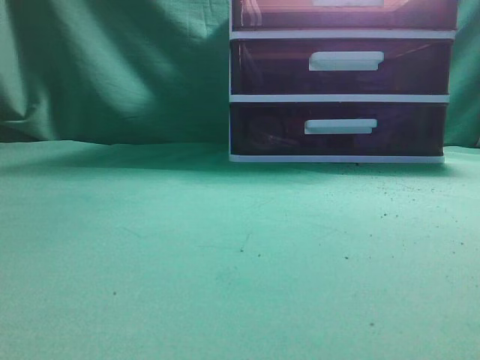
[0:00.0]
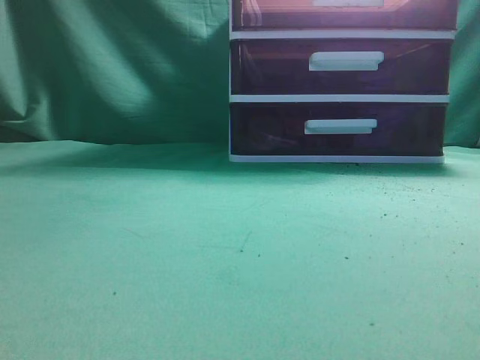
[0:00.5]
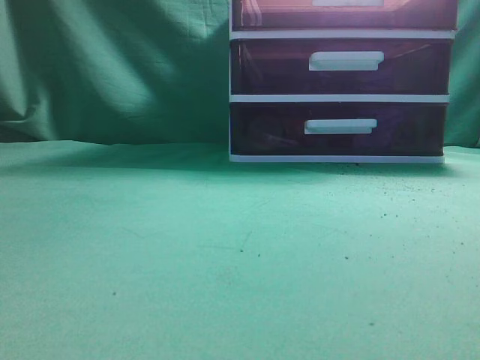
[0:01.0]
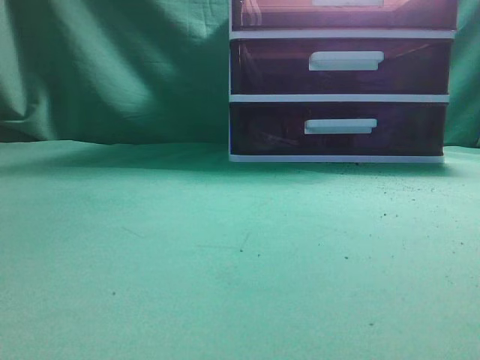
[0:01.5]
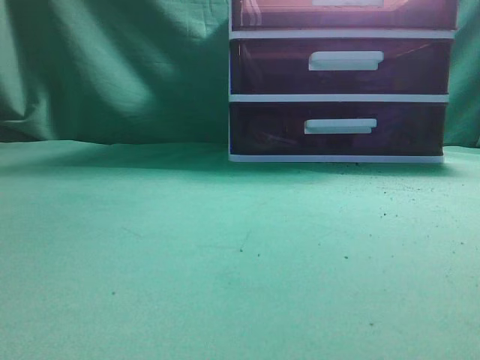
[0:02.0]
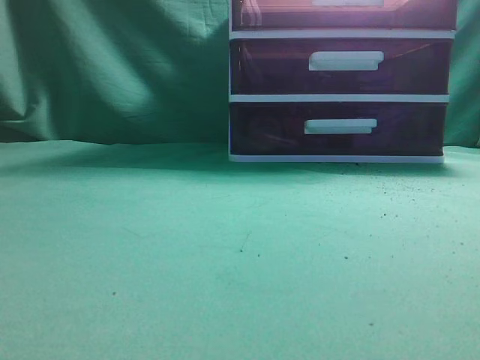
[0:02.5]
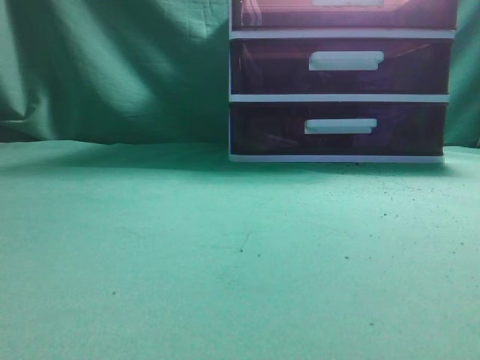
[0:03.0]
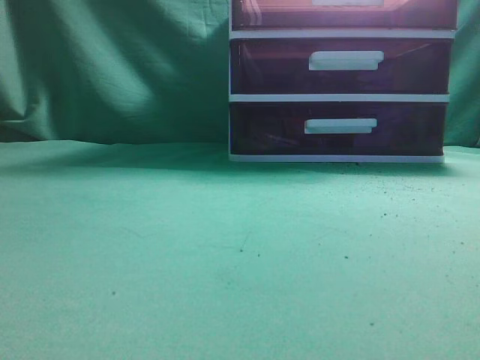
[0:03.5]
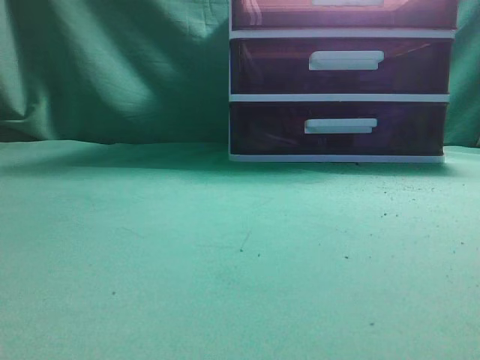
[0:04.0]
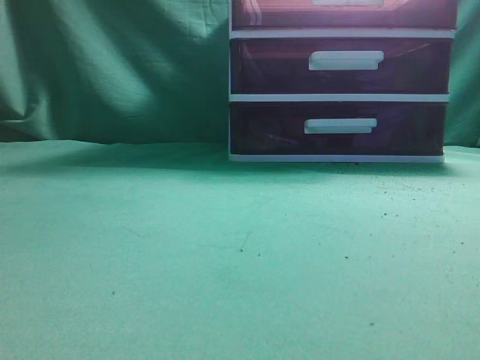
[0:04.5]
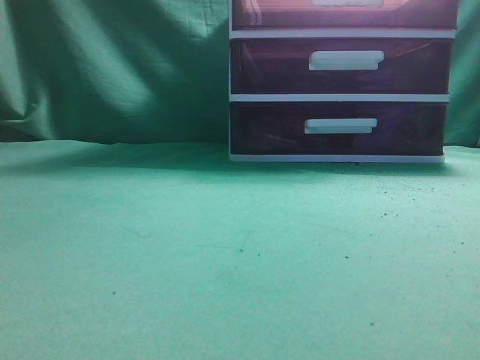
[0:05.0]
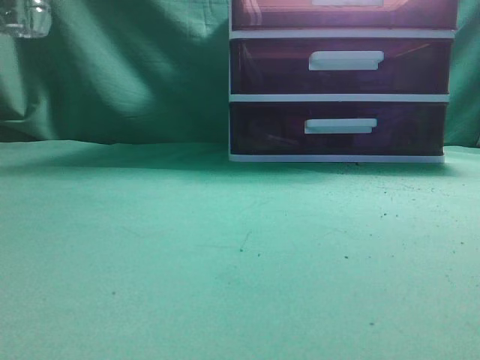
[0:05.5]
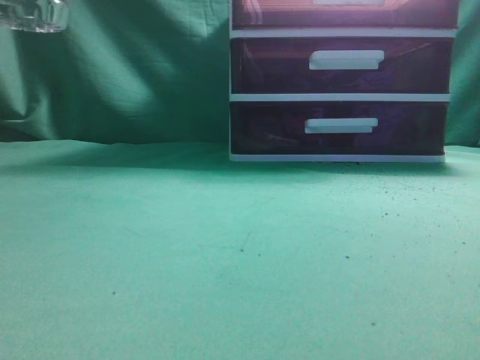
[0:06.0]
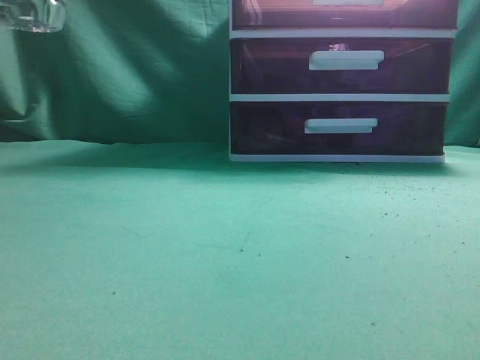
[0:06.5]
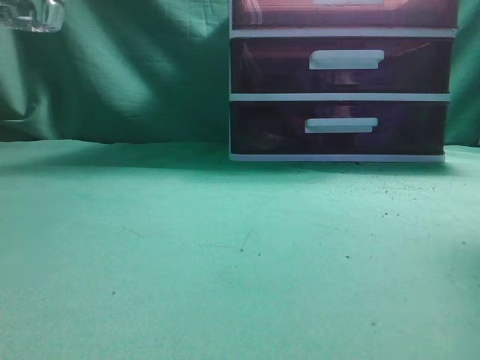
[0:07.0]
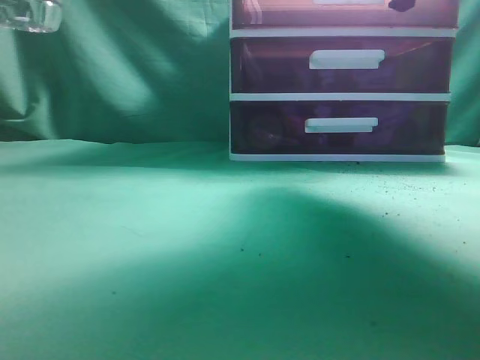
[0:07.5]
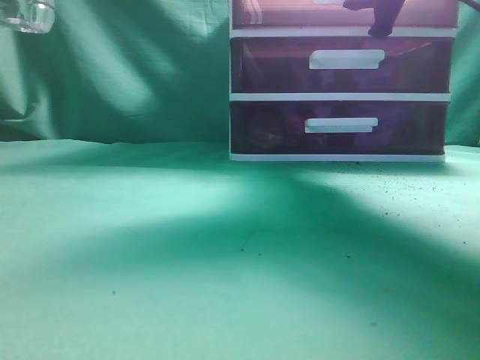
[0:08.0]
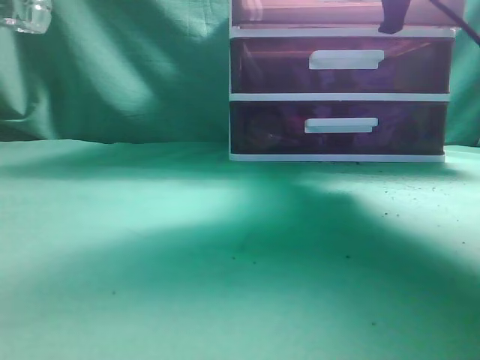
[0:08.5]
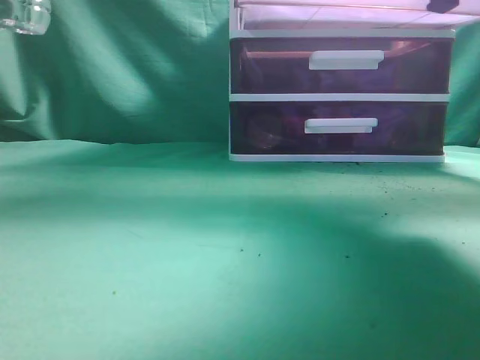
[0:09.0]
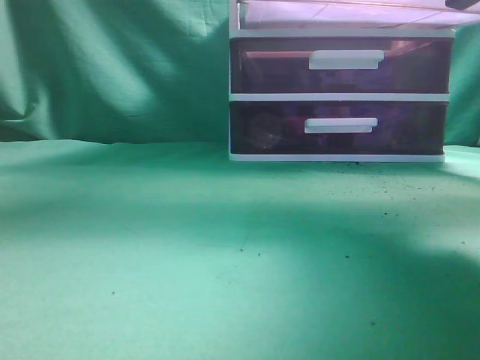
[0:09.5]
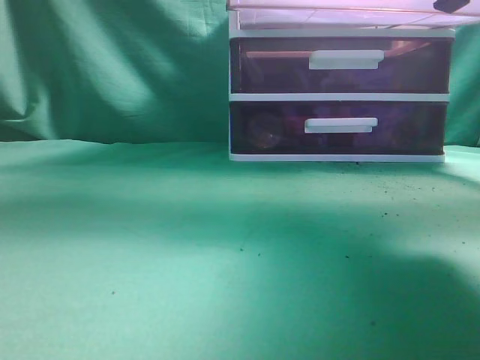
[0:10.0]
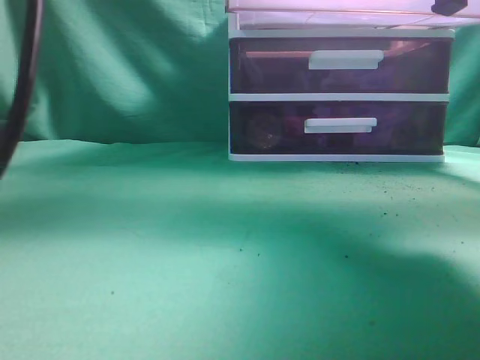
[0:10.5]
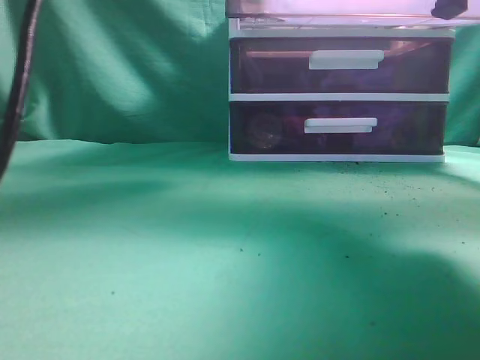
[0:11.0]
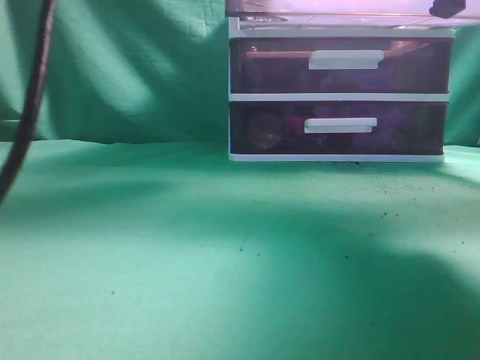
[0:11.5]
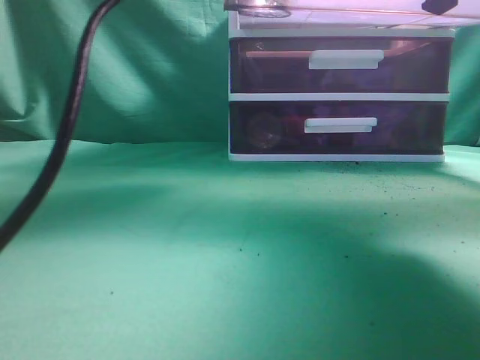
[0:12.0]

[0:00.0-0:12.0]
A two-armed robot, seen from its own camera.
Task of the whole recording: place the water bottle into the drawer.
Step, 0:00.0 to 0:09.0: Open the drawer.
Step, 0:09.5 to 0:12.0: Place the water bottle inside the drawer.
0:04.0 to 0:06.0: The left gripper shifts about 15 cm upward and to the right, and closes up.
0:06.0 to 0:08.0: The right gripper heads forward, covering some 35 cm, and opens up.
0:08.0 to 0:10.0: The left gripper shifts roughly 15 cm upward and to the right. The right gripper is displaced backward by some 10 cm.
0:10.0 to 0:12.0: The left gripper goes some 20 cm to the right, forward and downward, and opens its fingers.

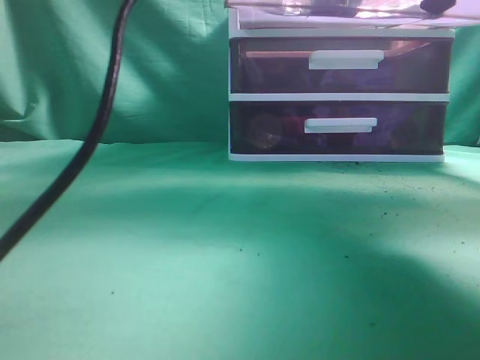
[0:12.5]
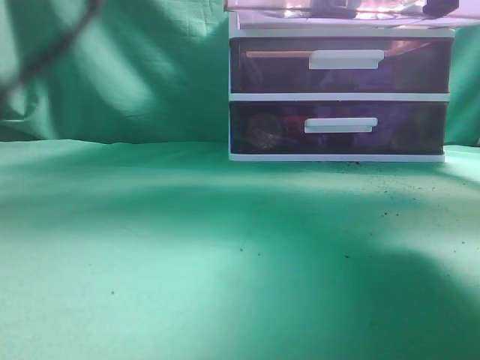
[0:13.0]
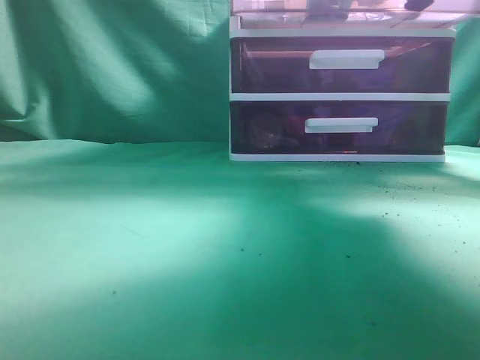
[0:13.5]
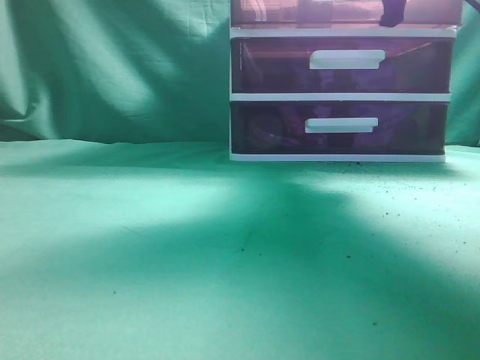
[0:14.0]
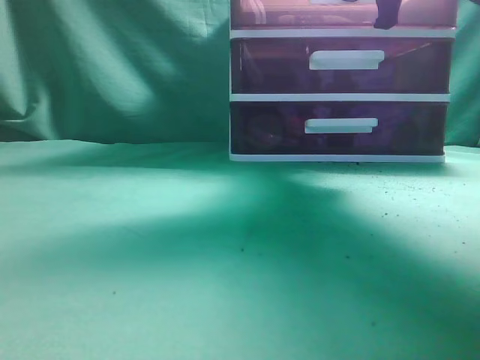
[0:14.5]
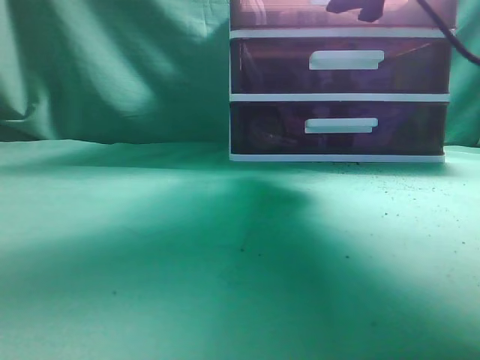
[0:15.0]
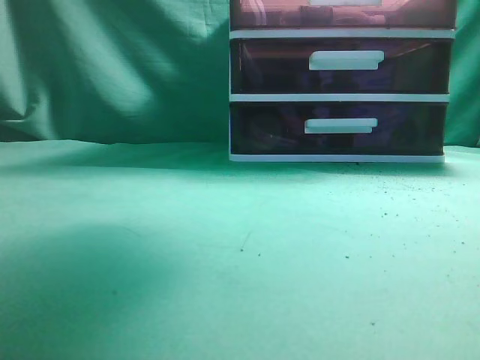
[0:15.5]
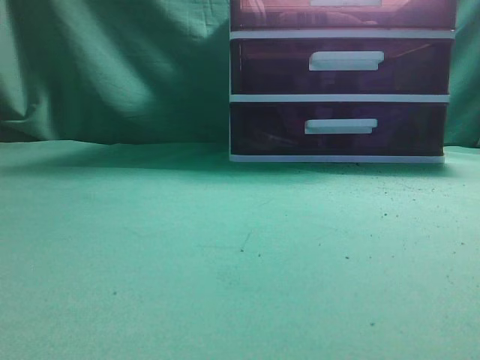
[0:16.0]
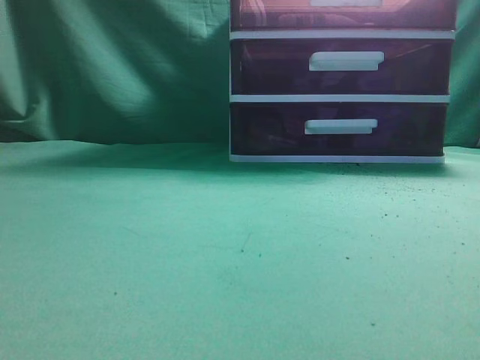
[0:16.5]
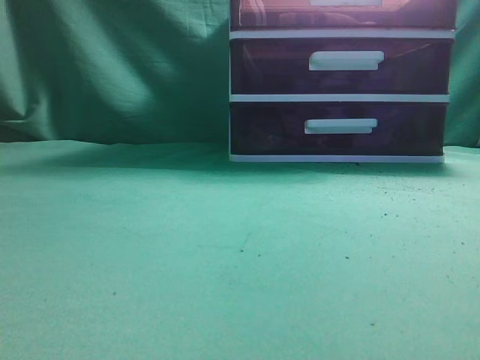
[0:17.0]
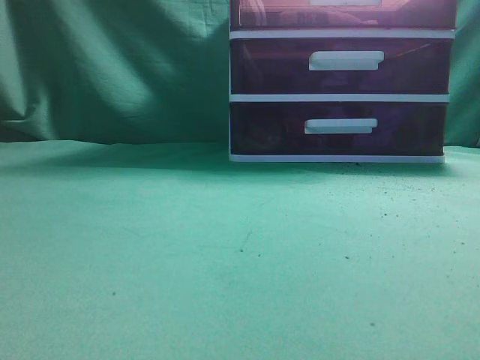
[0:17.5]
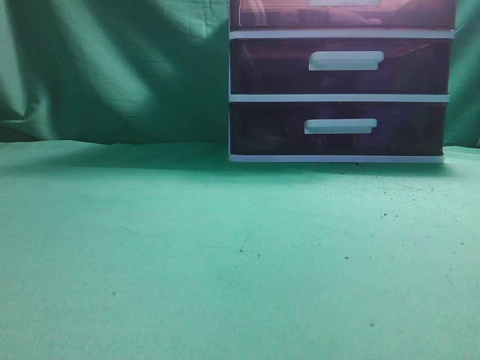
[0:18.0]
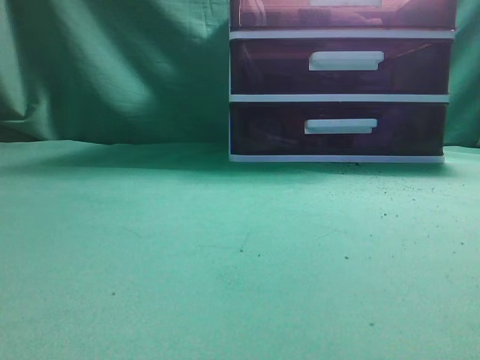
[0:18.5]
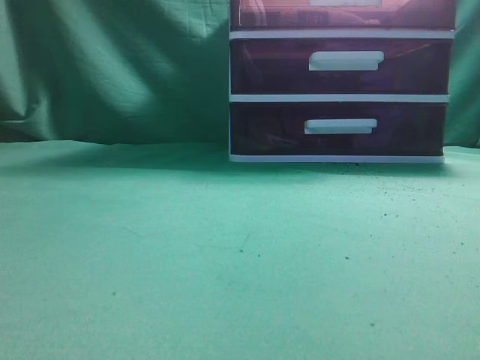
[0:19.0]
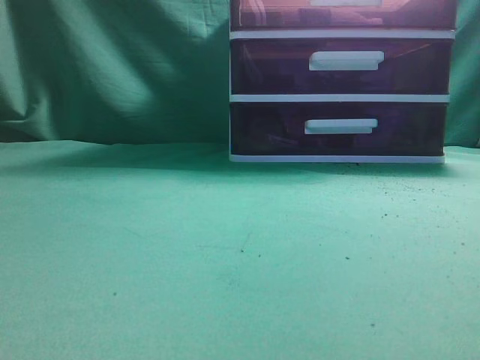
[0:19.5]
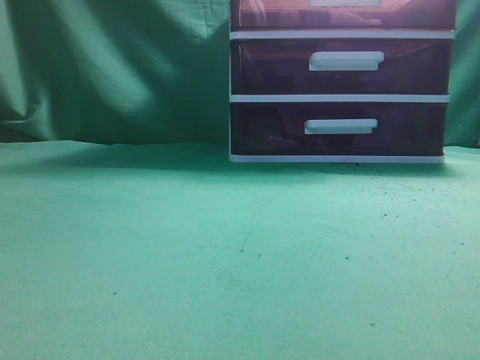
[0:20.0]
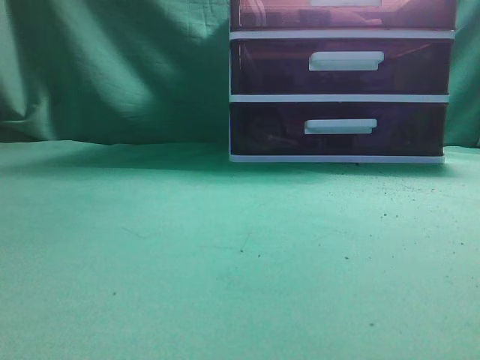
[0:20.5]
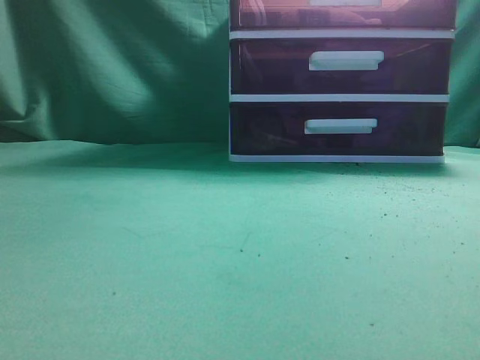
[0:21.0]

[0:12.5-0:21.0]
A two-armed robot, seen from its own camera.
Task of the whole recording: place the water bottle into the drawer.
Step, 0:12.5 to 0:14.0: Close the drawer.
0:12.5 to 0:14.5: The left gripper heads backward and to the left, covering about 35 cm, and closes its fingers. Meanwhile the right gripper goes about 15 cm forward.
0:14.5 to 0:16.5: The left gripper moves backward, downward and to the left, some 20 cm. The right gripper shifts about 30 cm backward, and opens, then closes again.
